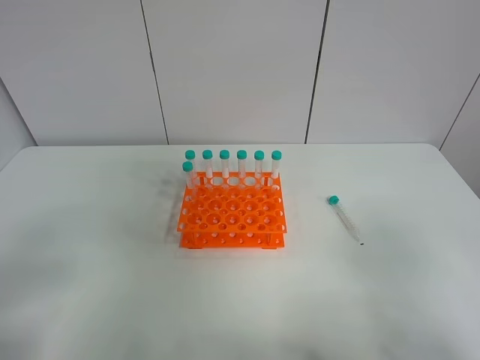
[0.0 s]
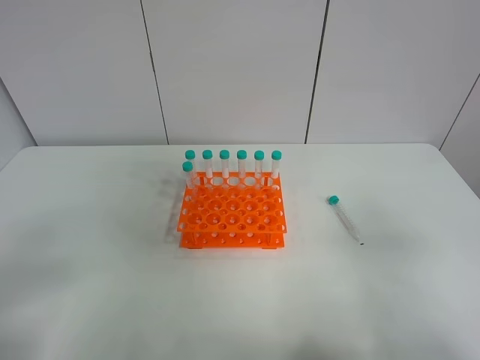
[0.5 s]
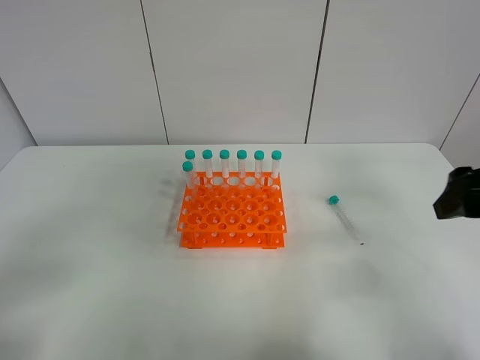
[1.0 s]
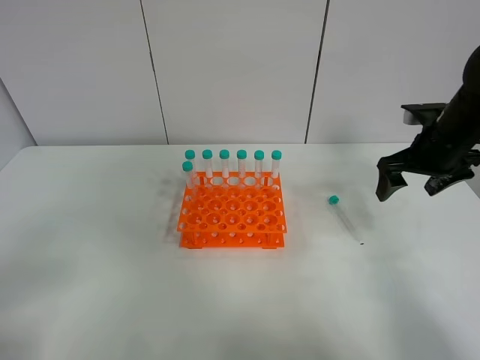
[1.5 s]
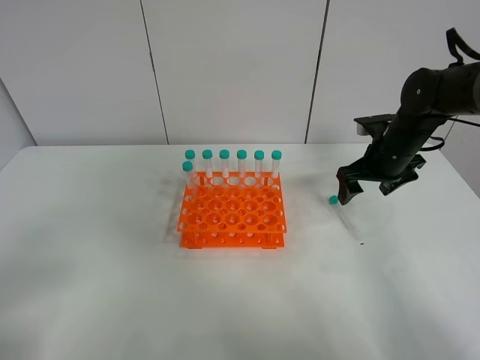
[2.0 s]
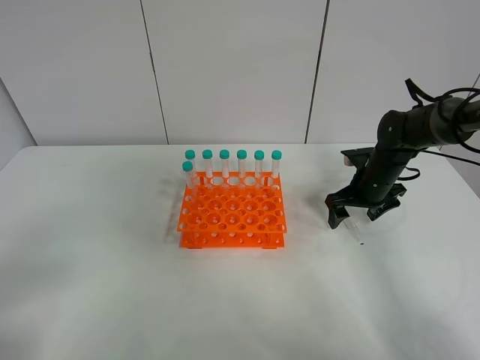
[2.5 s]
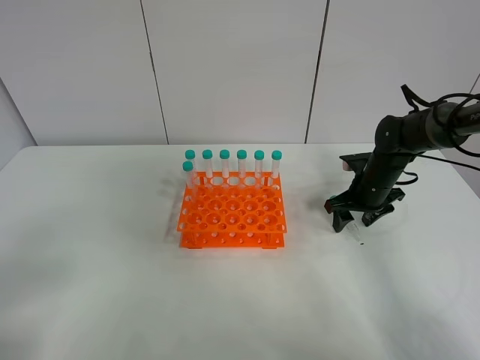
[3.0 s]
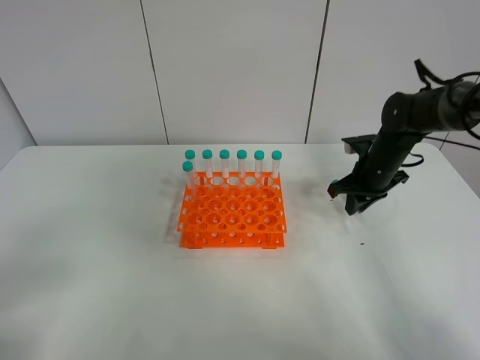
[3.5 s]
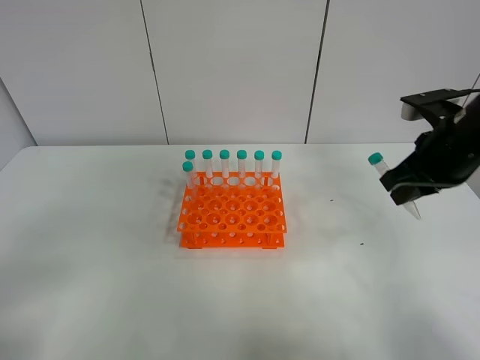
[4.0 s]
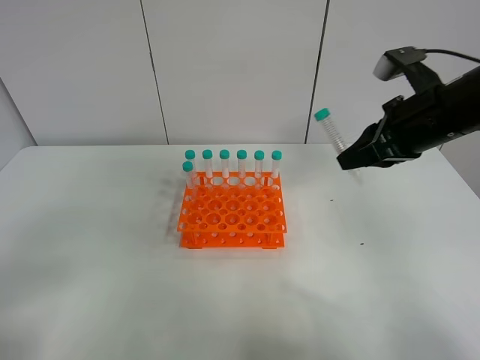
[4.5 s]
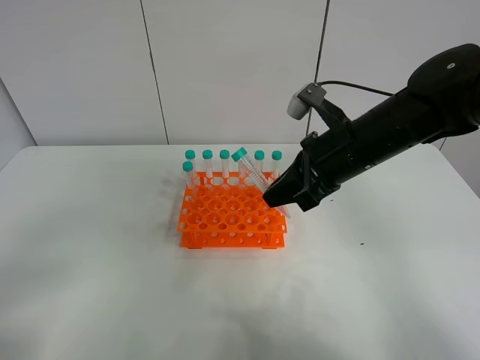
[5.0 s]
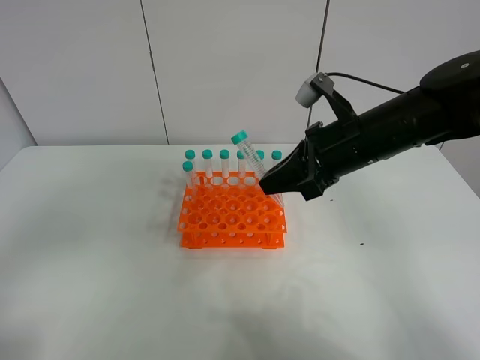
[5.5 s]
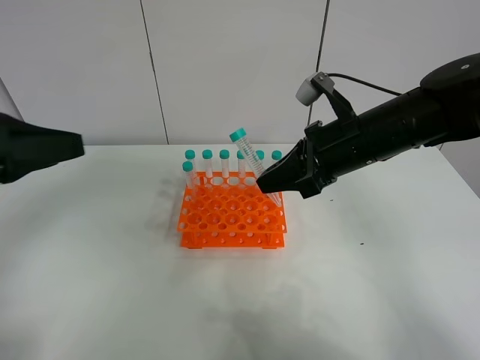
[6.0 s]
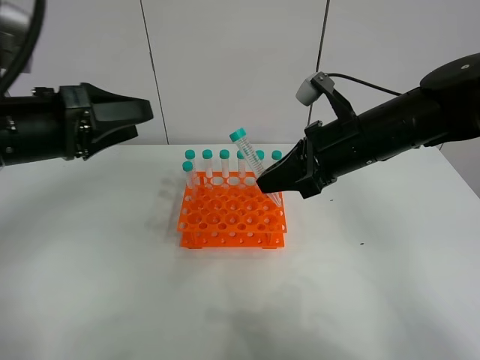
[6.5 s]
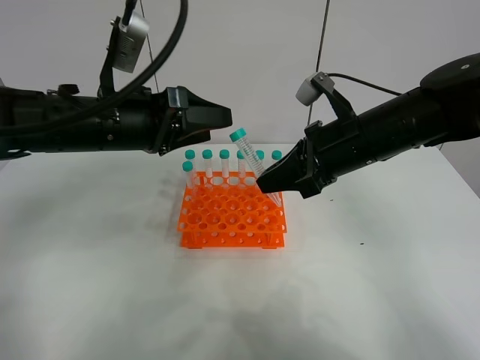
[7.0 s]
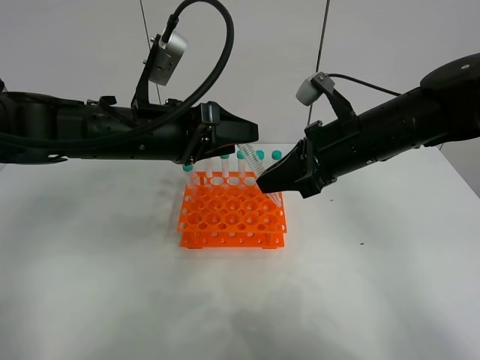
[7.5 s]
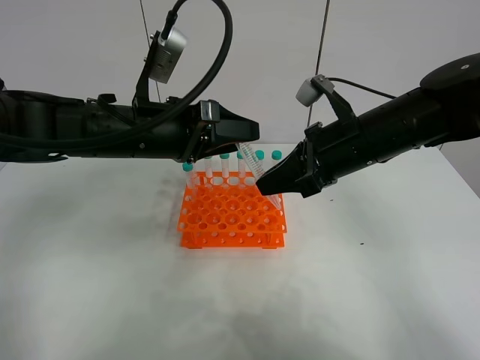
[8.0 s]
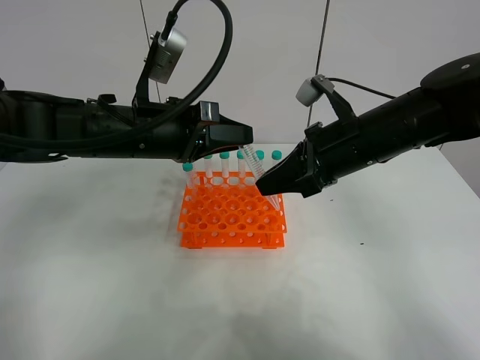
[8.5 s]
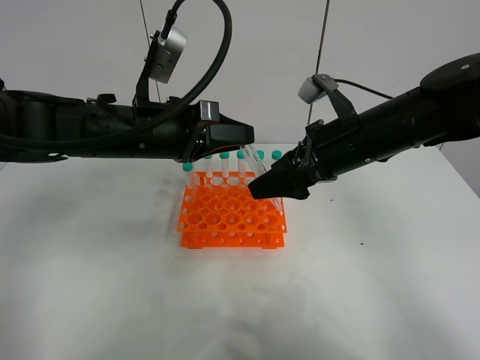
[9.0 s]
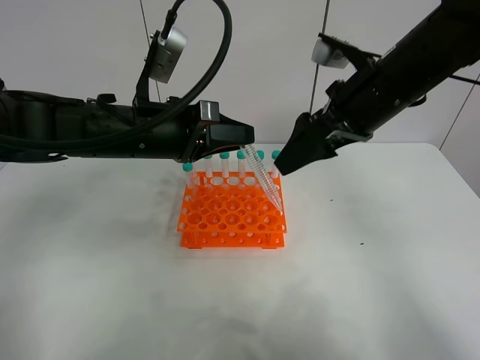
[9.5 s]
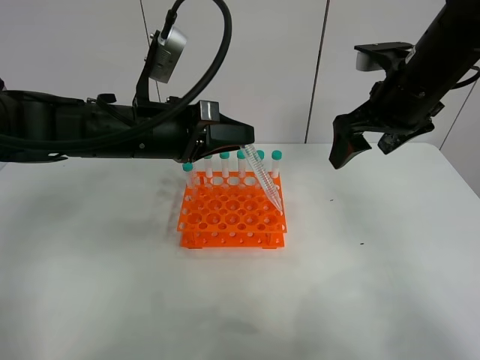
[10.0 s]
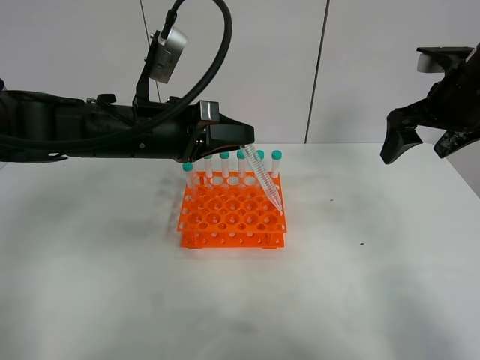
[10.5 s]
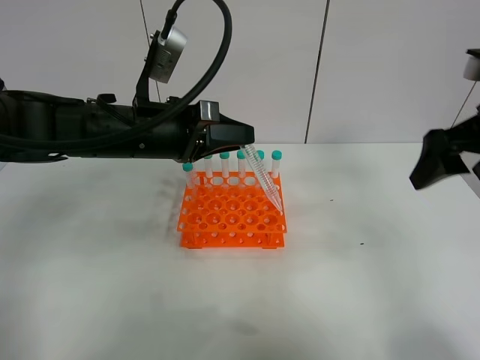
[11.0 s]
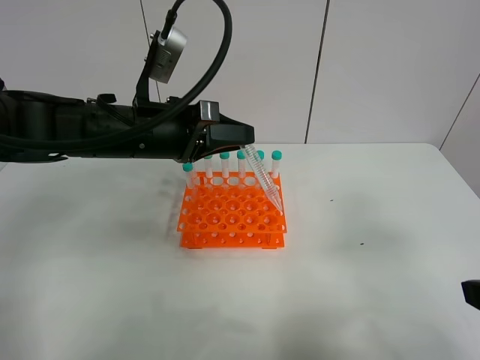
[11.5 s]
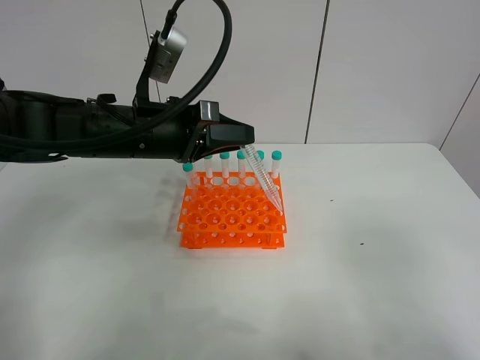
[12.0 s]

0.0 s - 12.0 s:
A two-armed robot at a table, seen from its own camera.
Task of the whole recording: Put the test tube on the table back onto the test tube rack.
Step, 0.0 s - 3.0 s: Pick up the test tube with the right gripper.
Step, 3.5 s - 9.0 s: Move the test tube from the right gripper to the left gripper.
0.0 s - 2.0 s: The right gripper is displaced forward by about 40 cm.
2.0 s - 4.0 s: The right gripper is displaced backward and upward by some 15 cm, and closes up.
4.0 s - 6.0 s: The left gripper shifts some 15 cm forward; the right gripper shifts about 10 cm to the left.
6.0 s - 8.0 s: The left gripper heads to the right, forward and downward, covering some 20 cm.
8.0 s - 10.0 s: The right gripper heads upward and to the right, covering roughly 10 cm, and opens its fingers. The left gripper closes.
10.0 s - 12.0 s: The right gripper moves backward, approximately 30 cm.

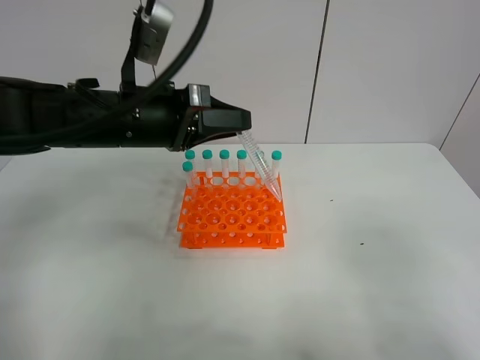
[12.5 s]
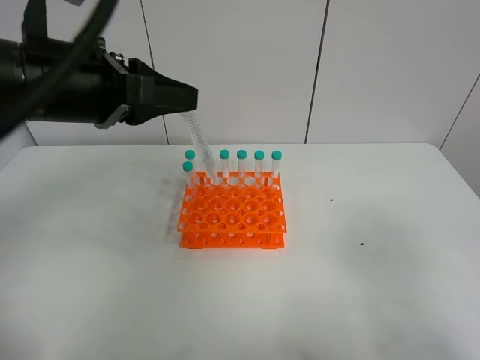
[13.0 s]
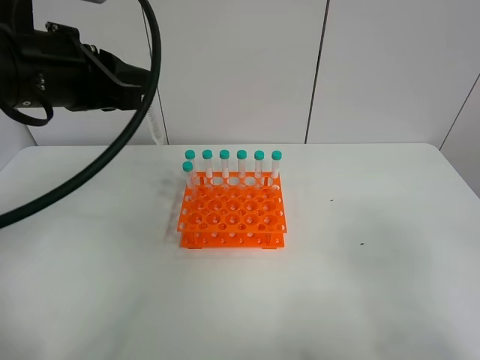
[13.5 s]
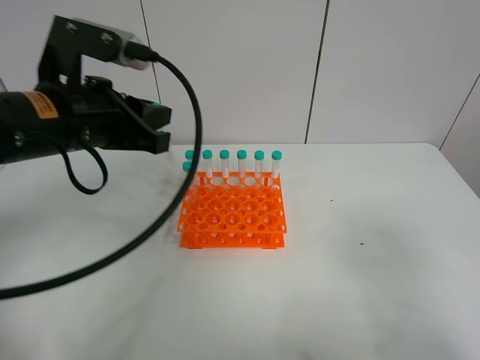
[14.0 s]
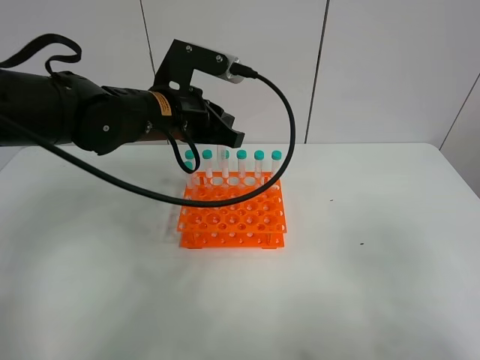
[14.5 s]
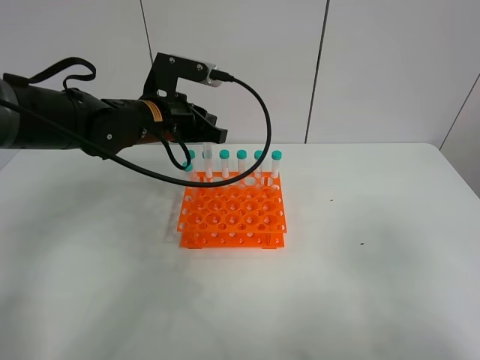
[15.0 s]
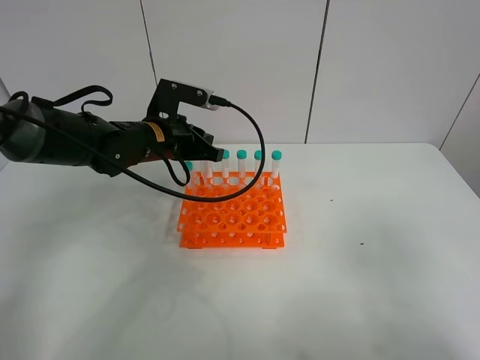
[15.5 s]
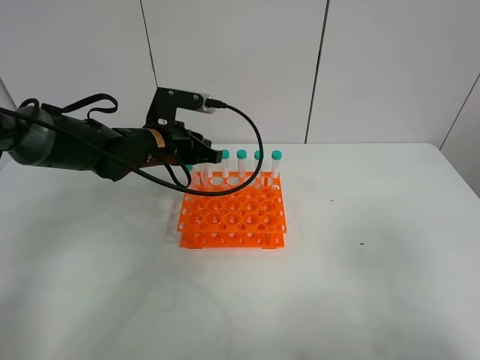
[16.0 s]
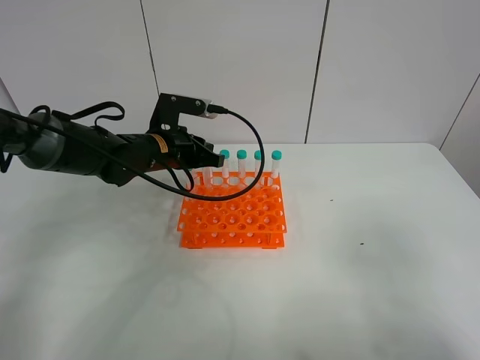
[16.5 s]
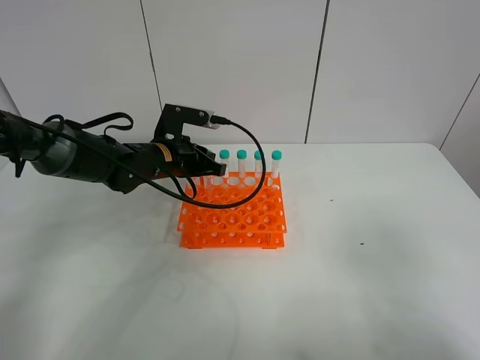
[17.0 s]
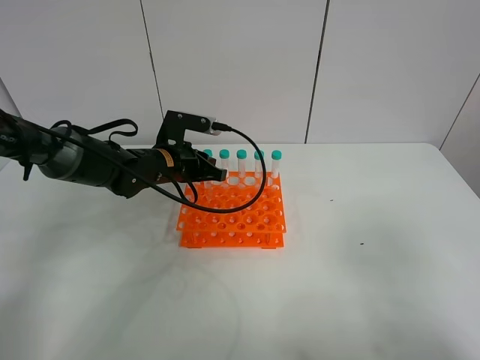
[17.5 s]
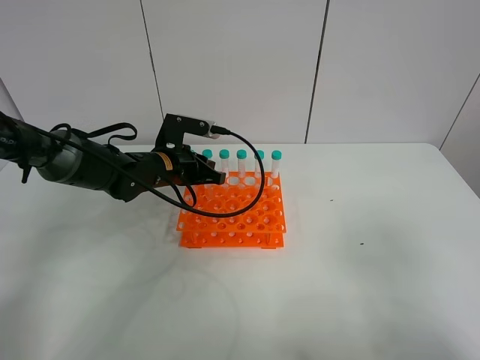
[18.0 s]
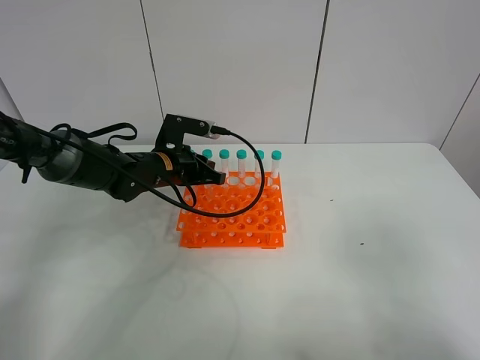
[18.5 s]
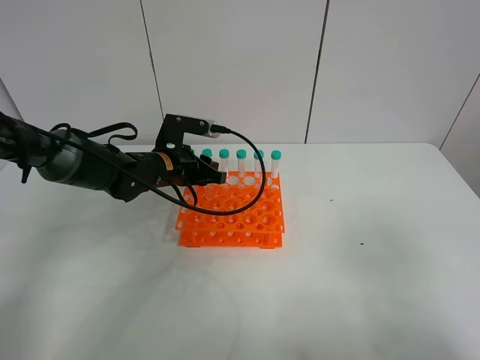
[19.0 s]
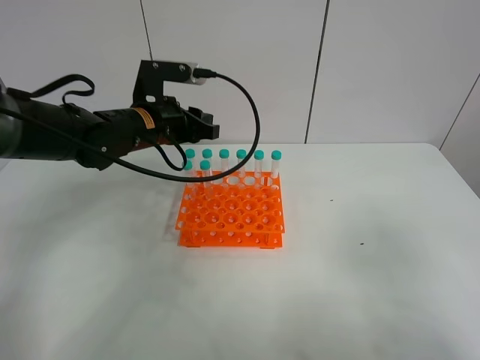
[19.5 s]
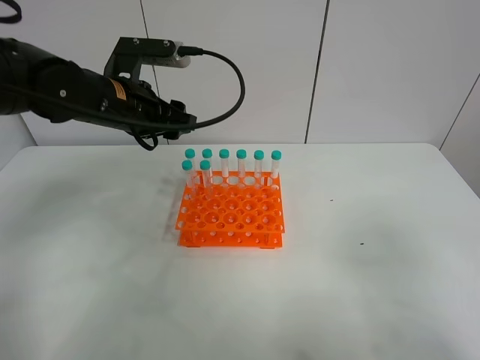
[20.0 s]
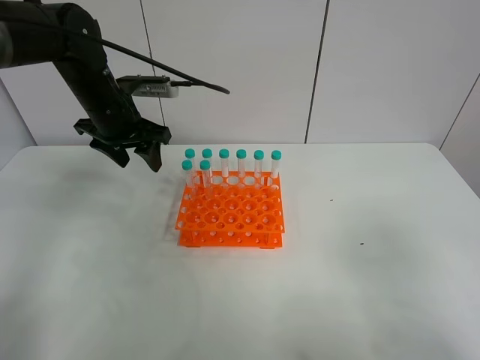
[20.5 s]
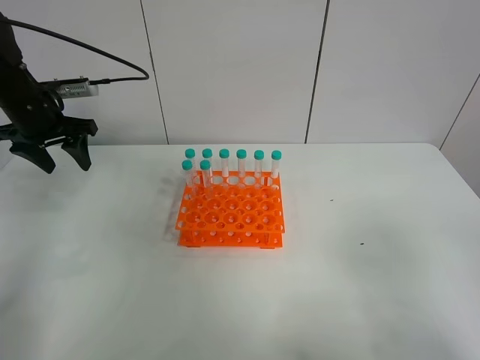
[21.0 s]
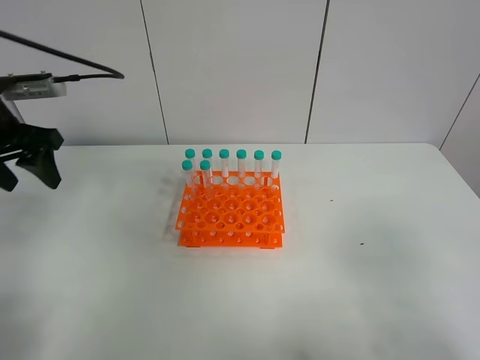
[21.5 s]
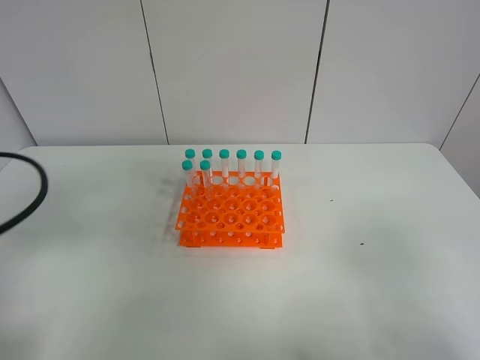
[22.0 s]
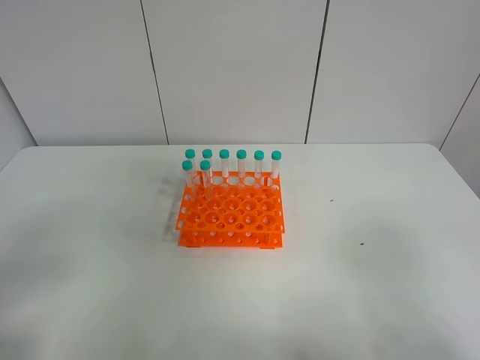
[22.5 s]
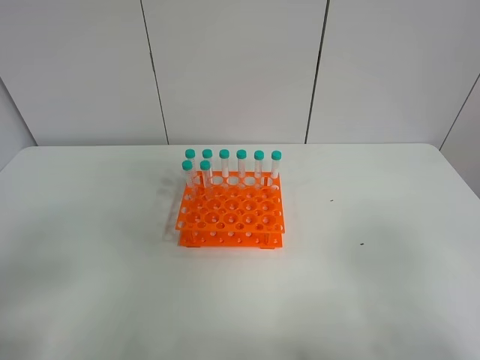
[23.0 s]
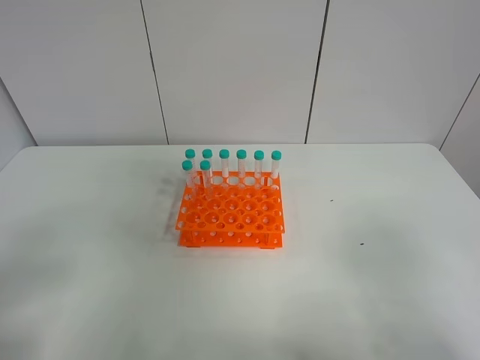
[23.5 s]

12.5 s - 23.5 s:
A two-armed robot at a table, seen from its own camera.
Task of the whole recording: Put the test tube on the table back onto the test tube rack.
Step, 12.5 s - 19.0 s: Place the test tube on the test tube rack with the left gripper.
12.5 s - 14.5 s: The left gripper shifts approximately 5 cm forward.
14.5 s - 16.0 s: The left gripper is displaced downward by some 10 cm.
16.0 s - 18.0 s: The grippers stay close to where they were, moving slightly.
18.0 s - 20.0 s: The left gripper travels upward by roughly 15 cm, and opens up.
20.0 s - 21.5 s: The left gripper goes approximately 15 cm to the left.
21.5 s - 23.5 s: The left gripper goes approximately 30 cm backward.

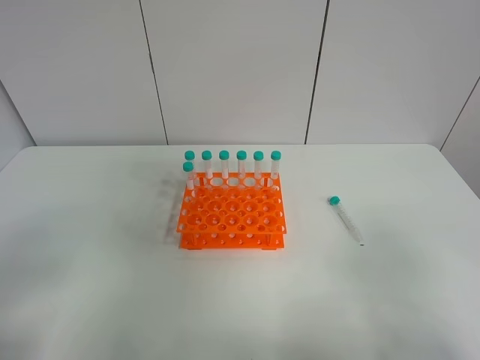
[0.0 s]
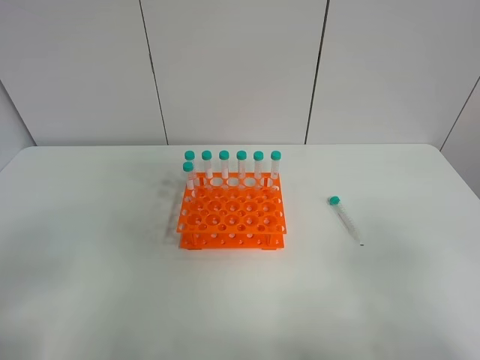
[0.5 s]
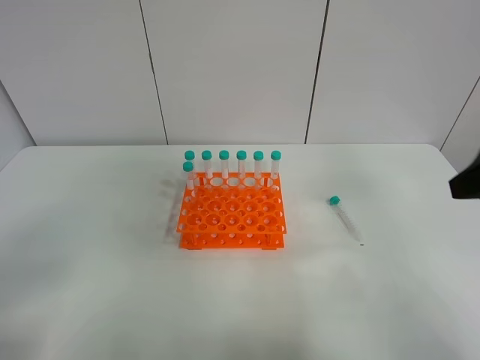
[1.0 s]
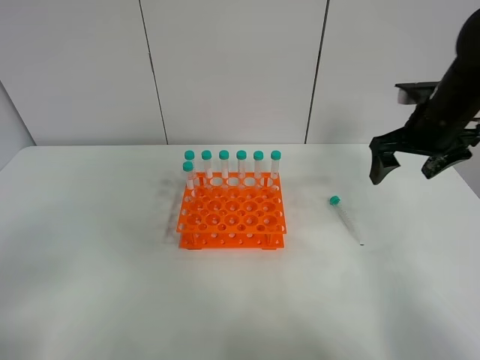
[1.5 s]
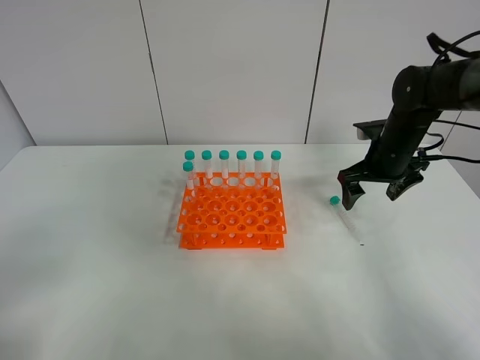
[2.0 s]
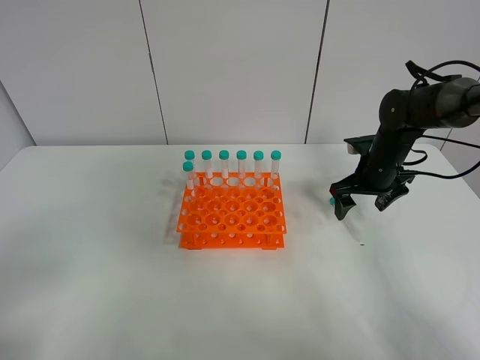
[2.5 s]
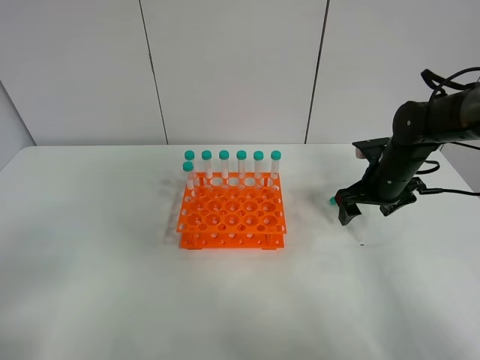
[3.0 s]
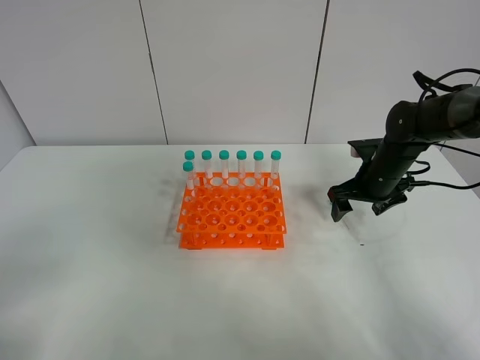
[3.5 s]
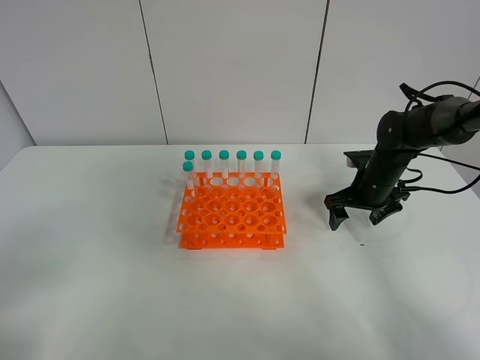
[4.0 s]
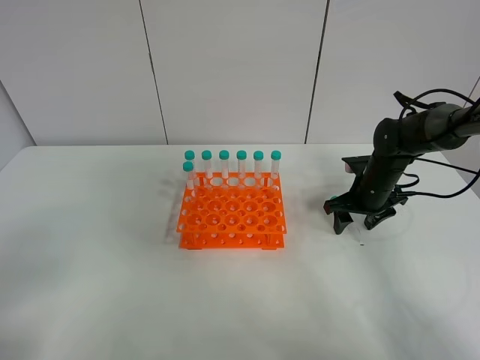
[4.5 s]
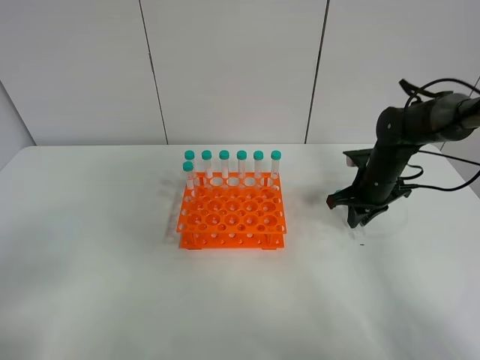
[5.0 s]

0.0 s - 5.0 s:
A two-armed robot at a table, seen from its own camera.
Task of the whole recording: Put the test tube on the table back onto the test tube rack.
0.0 s - 2.5 s: The right gripper moves forward, about 40 cm.
2.5 s - 5.0 s: The right gripper closes.
